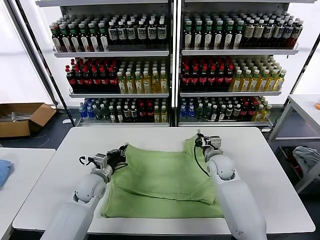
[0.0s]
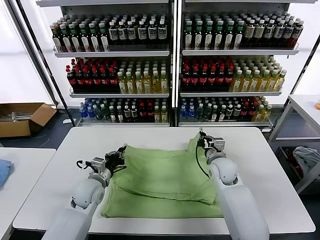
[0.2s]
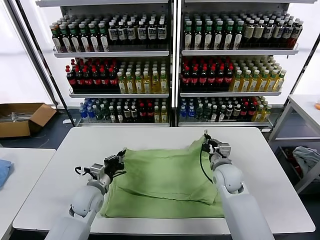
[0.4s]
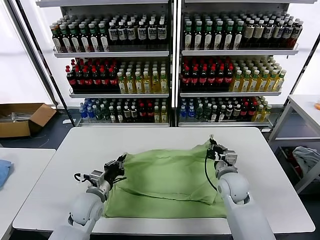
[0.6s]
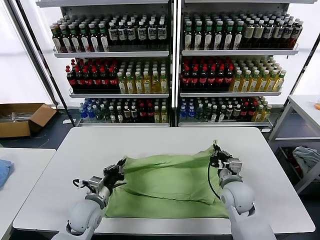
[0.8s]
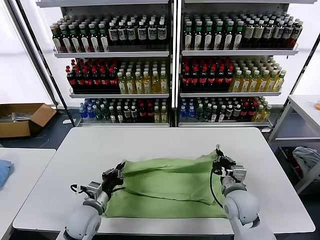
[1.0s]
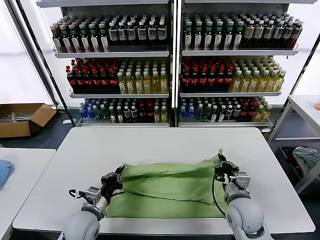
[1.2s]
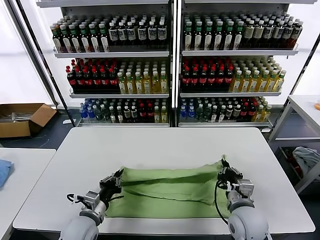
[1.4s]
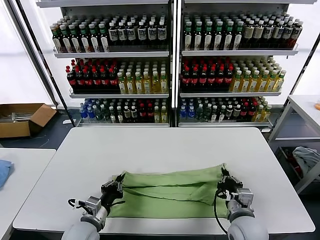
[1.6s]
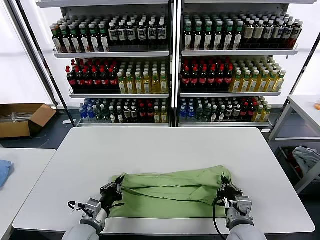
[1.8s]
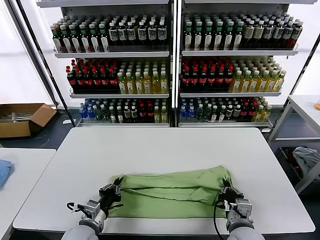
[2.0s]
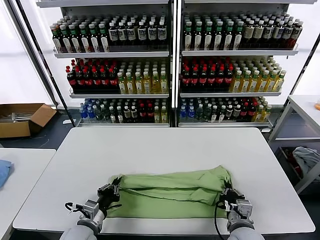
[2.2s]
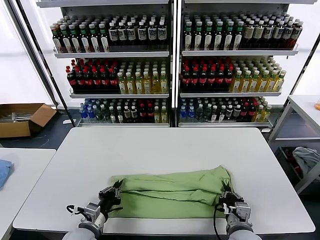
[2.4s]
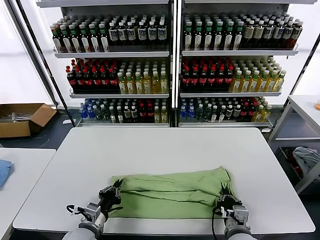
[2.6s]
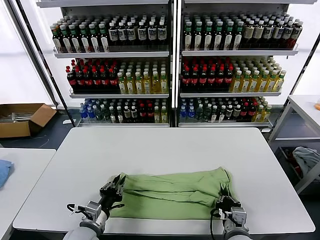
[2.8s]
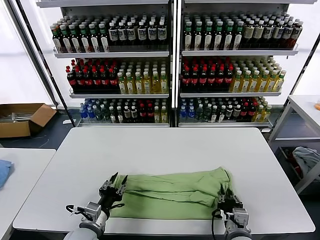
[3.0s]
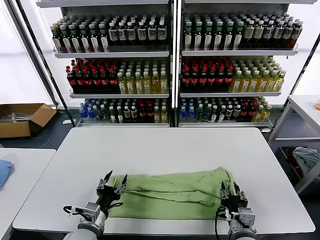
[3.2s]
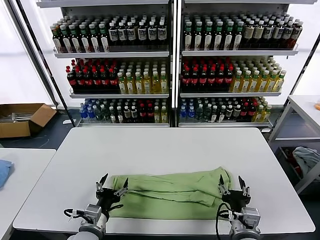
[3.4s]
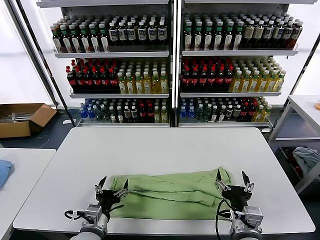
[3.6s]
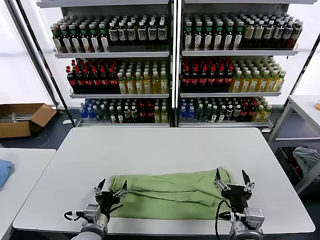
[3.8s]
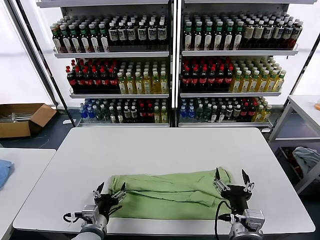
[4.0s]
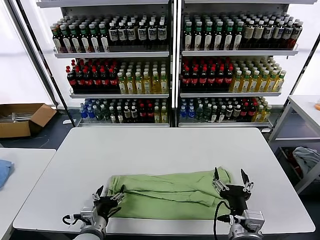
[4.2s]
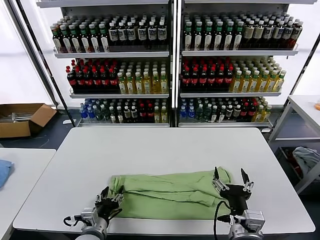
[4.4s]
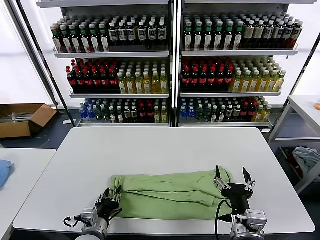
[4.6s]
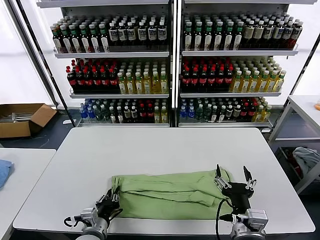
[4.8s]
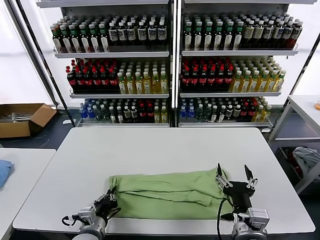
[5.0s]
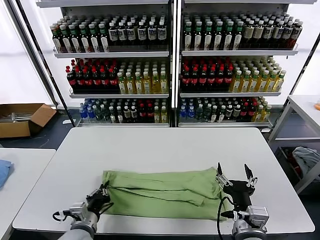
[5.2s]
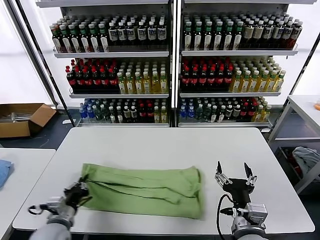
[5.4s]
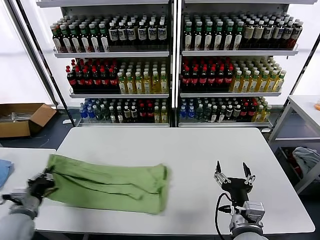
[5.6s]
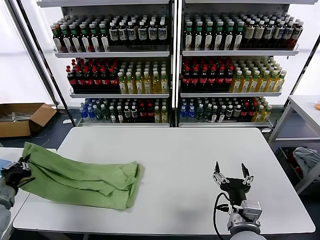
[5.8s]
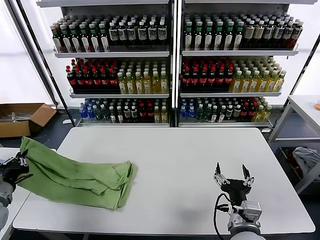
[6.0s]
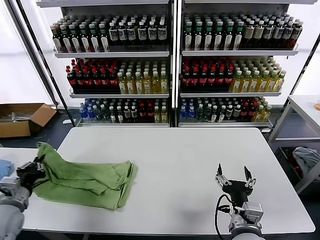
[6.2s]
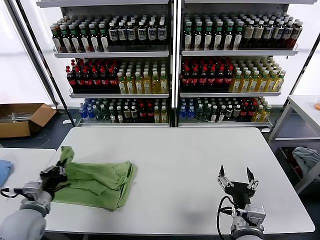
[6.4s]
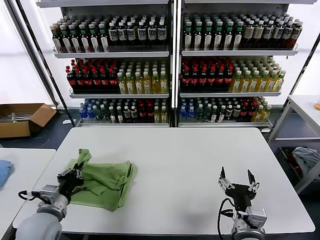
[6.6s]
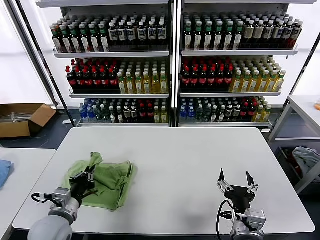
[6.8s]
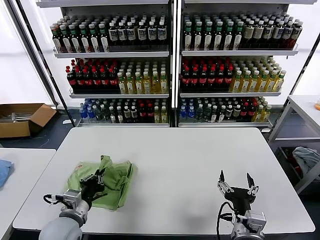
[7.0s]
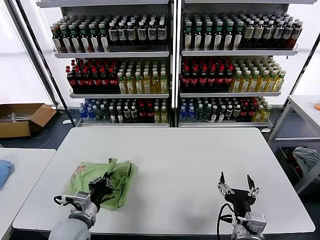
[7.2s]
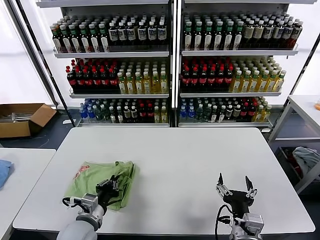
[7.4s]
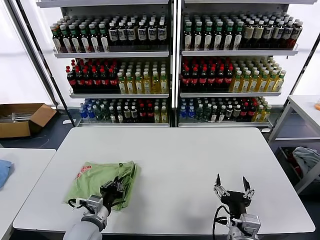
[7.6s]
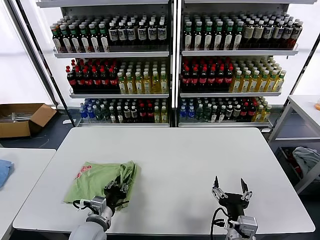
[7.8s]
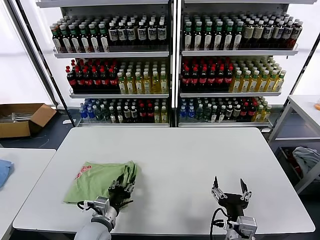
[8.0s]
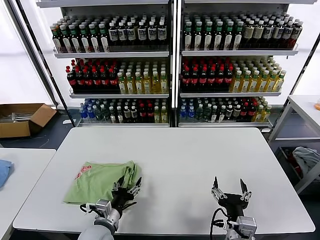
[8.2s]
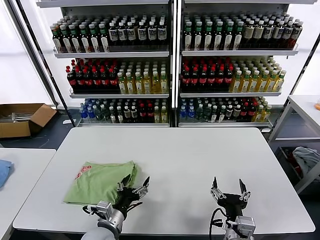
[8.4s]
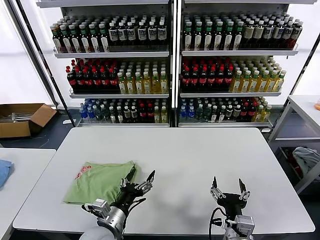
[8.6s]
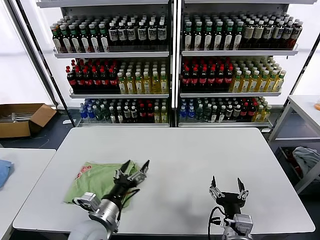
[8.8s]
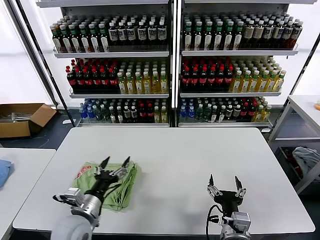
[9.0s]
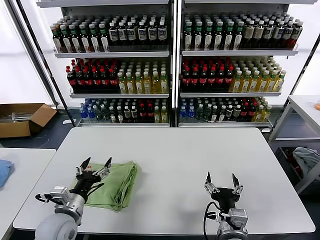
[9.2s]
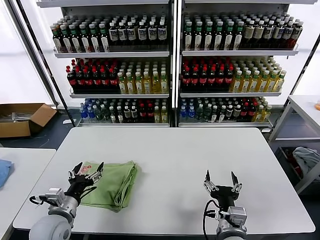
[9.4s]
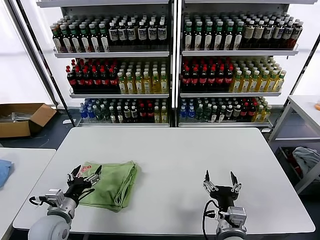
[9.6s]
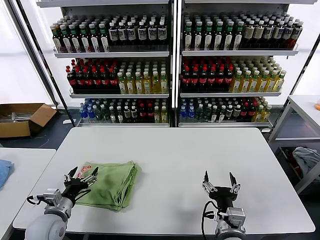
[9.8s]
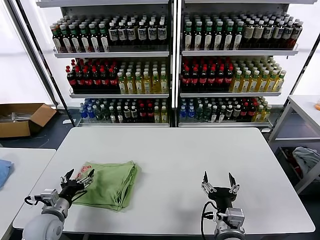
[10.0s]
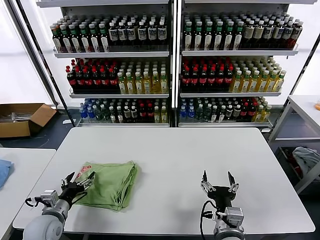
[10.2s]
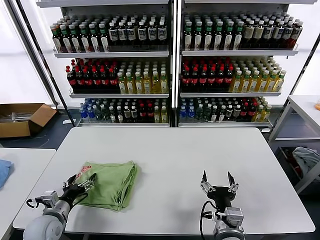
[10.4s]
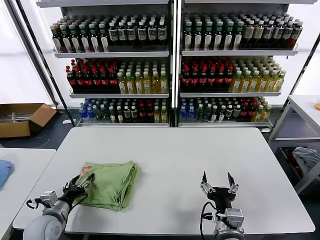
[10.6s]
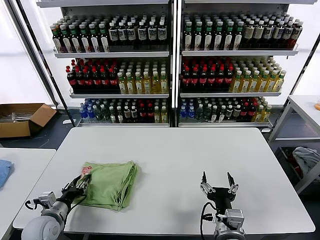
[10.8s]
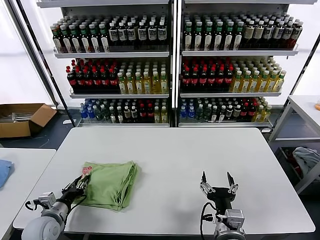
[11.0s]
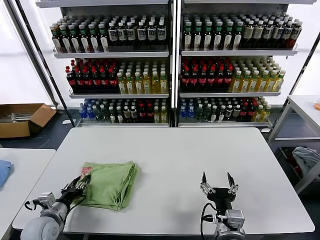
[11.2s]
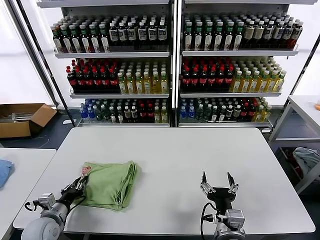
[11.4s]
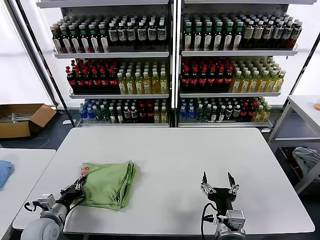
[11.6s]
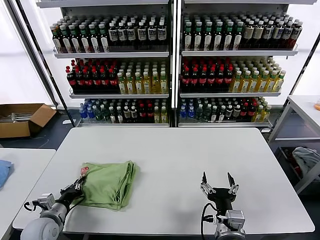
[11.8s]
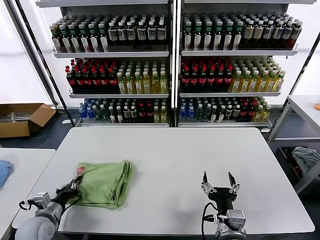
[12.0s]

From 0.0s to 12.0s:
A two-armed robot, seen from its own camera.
Task of the whole recording: fold and organize the clothes.
Step, from 0.0s to 3.2s: use both grippers to drag the upper edge of the fabric backward and fold it over the lower edge.
Step, from 3.4s to 4.8s: use the left gripper to clamp the left edge of the fabric.
Step, from 5.0s to 8.4s: use the left gripper to drag the left edge of the fabric to the left and folds it over the right edge.
From 0.0s to 1.6s: The two grippers go some 20 cm backward.
From 1.6s to 3.0s: The left gripper opens its fingers.
From 3.0s to 4.4s: The right gripper is displaced upward by about 10 cm, and opens up.
From 4.4s to 6.0s: The left gripper heads to the left and upward, covering some 30 cm, and closes.
From 6.0s to 7.6s: The left gripper moves to the right, approximately 25 cm.
From 7.6s to 9.0s: The left gripper opens.
From 9.0s to 10.4s: The left gripper moves to the left and downward, approximately 15 cm.
From 10.4s to 12.0s: The left gripper closes.

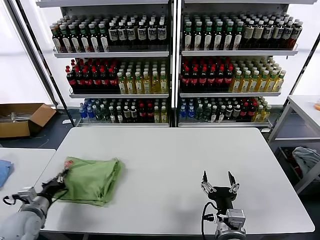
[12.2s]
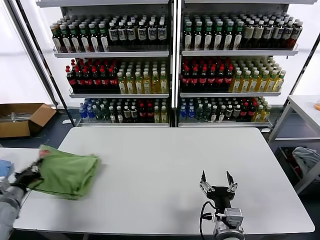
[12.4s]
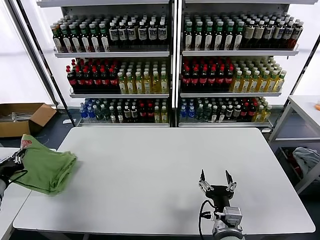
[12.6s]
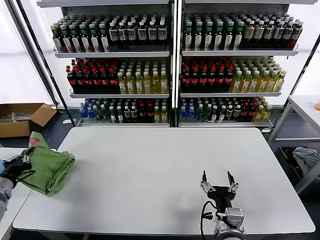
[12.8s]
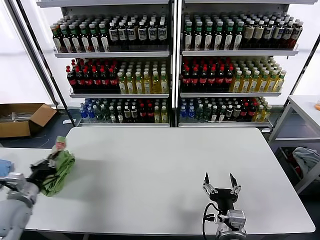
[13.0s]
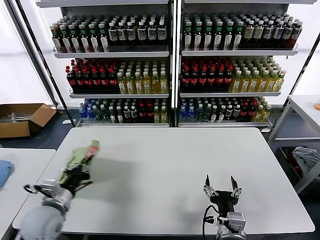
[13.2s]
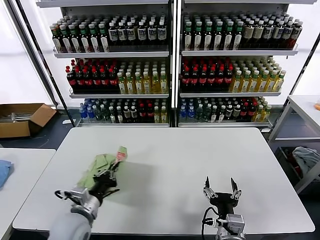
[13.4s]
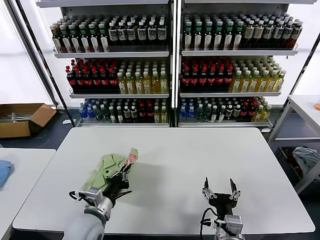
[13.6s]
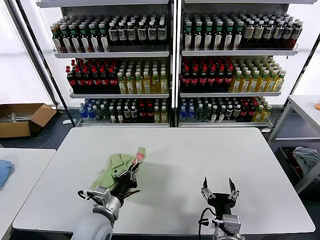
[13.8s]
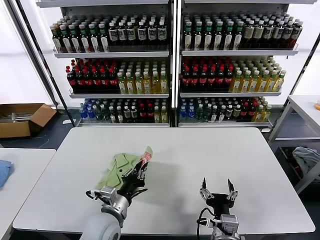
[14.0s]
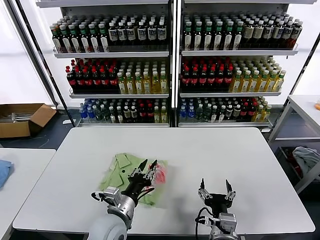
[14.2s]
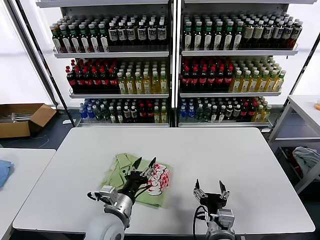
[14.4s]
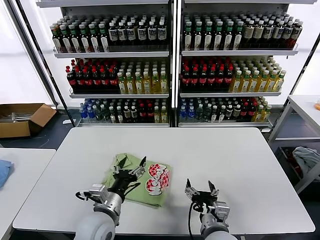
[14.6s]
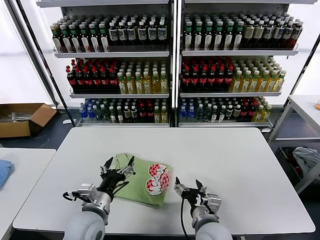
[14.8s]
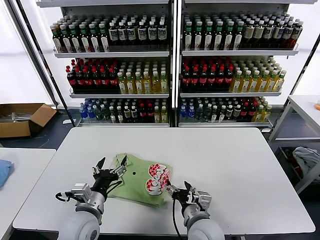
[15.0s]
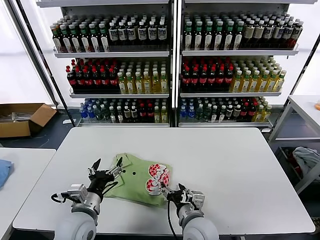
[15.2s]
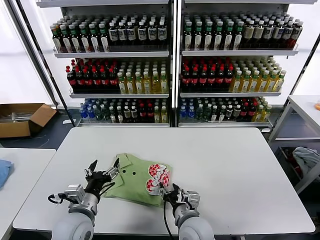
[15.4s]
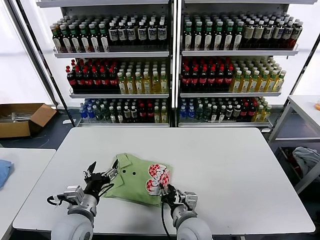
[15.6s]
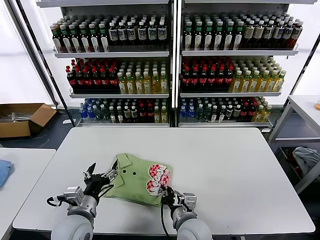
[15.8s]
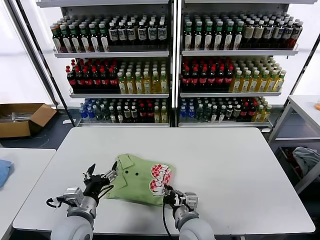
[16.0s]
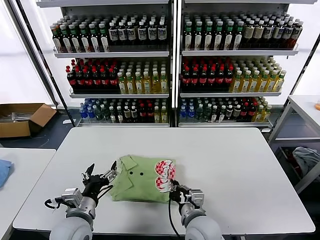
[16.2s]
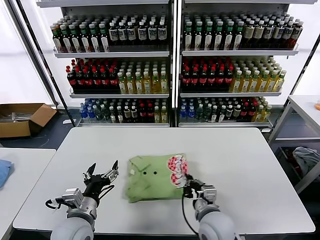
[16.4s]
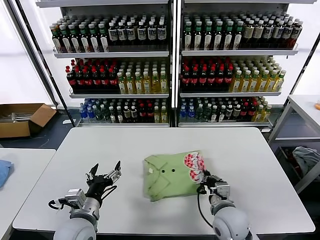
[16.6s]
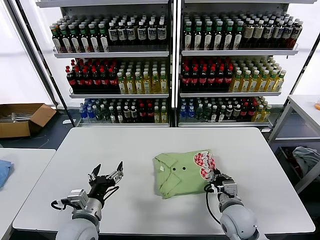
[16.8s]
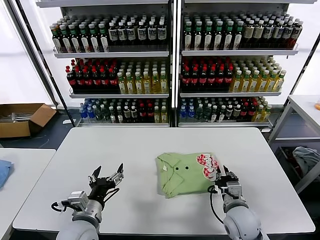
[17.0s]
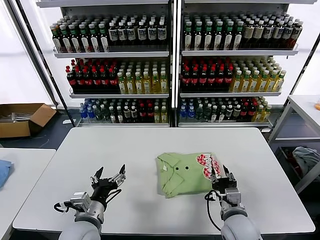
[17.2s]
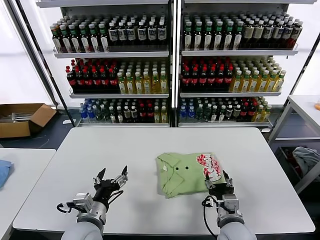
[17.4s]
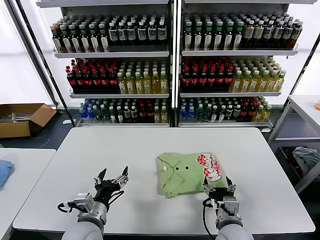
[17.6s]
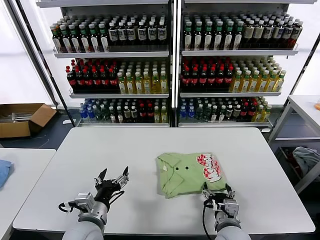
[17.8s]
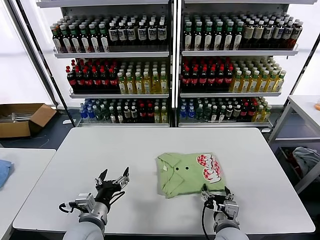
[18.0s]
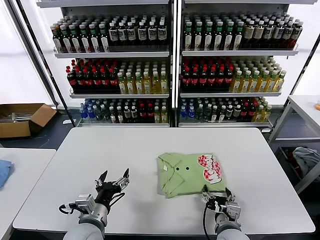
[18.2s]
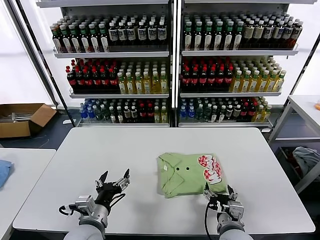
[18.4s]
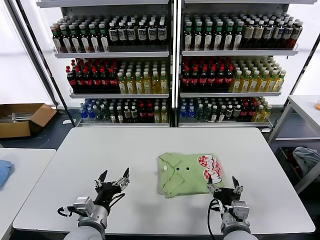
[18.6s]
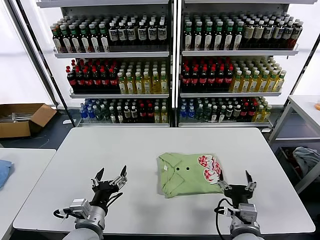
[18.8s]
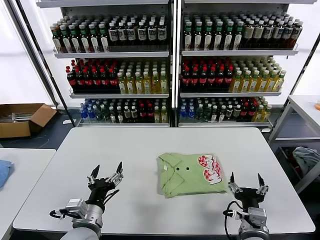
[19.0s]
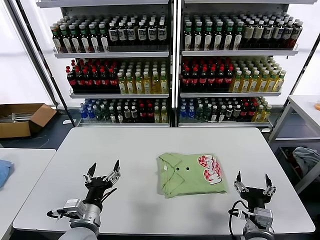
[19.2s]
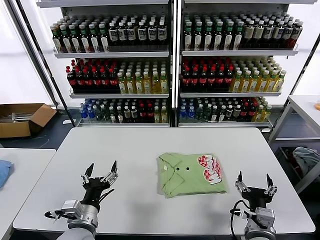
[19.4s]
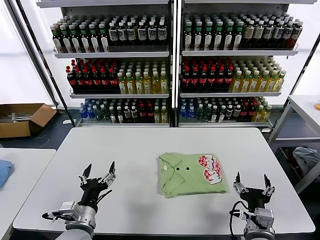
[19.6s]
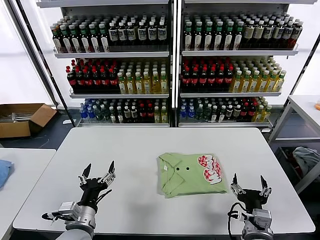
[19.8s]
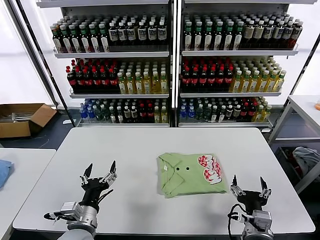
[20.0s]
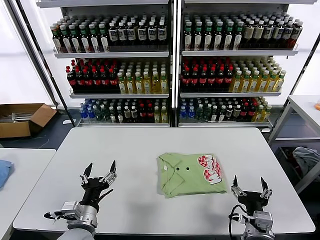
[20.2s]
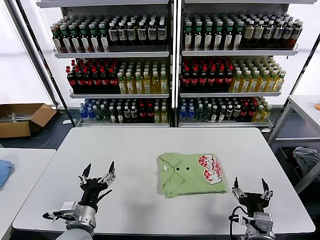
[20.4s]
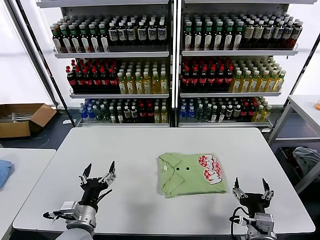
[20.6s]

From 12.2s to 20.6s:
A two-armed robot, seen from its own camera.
Task of the whole recording: fold and organize the clothes.
Step, from 12.2s to 14.2s: Flip the folded clothes over with left gripper.
Step, from 14.6s to 18.6s: Drag the clothes to the center of the table.
From 12.2s to 13.6s: The left gripper is displaced to the right by about 20 cm.
From 13.6s to 15.0s: The right gripper moves forward and to the left, some 10 cm. The left gripper opens up.
From 15.0s to 16.4s: The right gripper closes up.
From 16.4s to 17.8s: The right gripper heads to the right, covering some 5 cm, and opens.
From 17.8s to 19.2s: The right gripper moves roughly 5 cm.
From 19.2s to 20.6s: The grippers move only a little.
